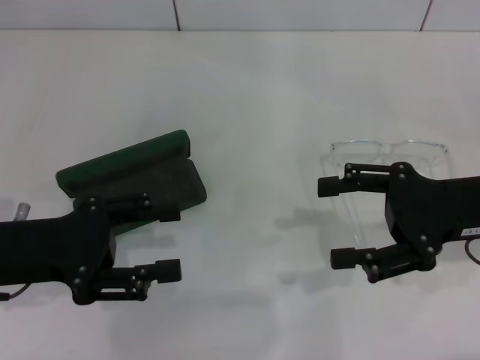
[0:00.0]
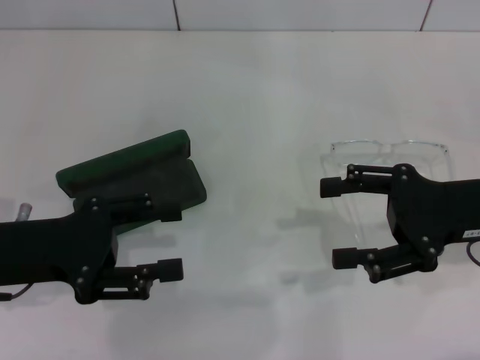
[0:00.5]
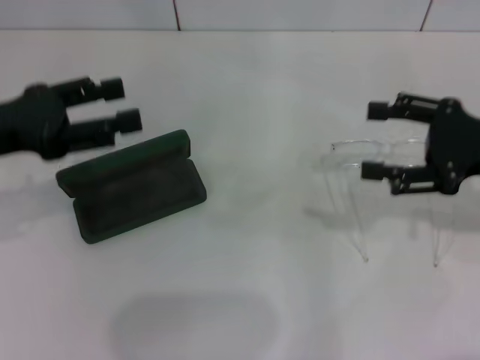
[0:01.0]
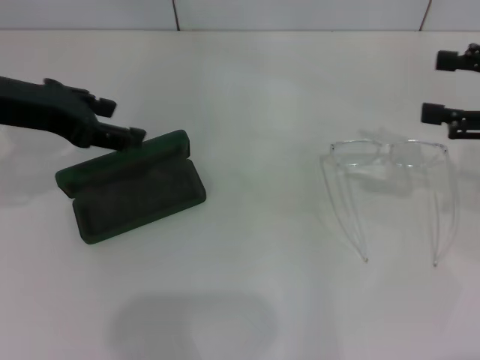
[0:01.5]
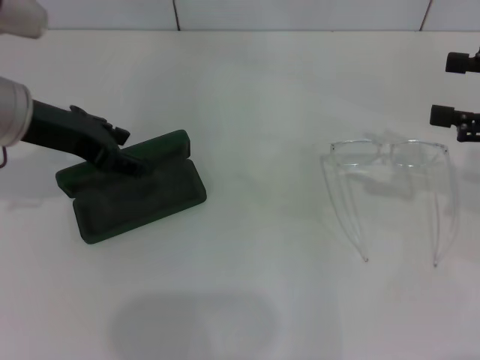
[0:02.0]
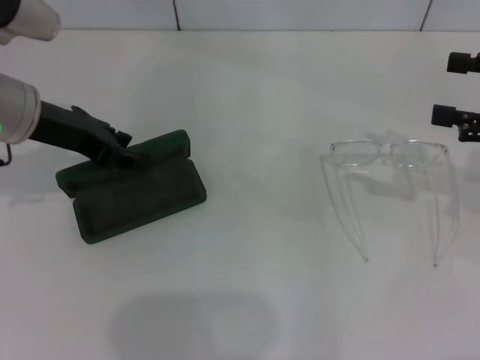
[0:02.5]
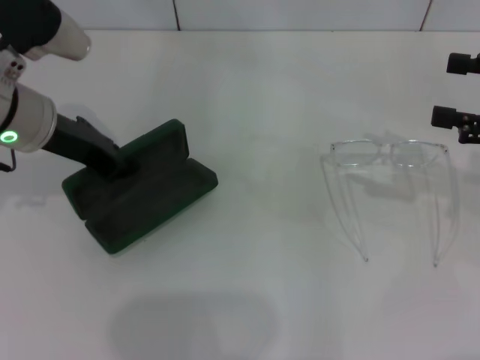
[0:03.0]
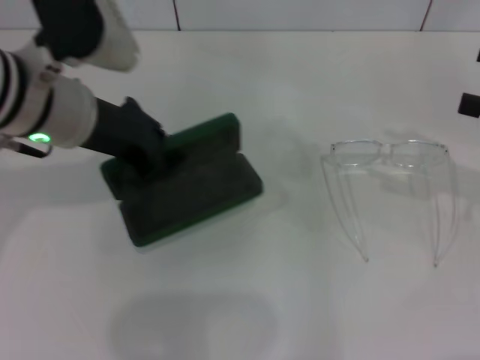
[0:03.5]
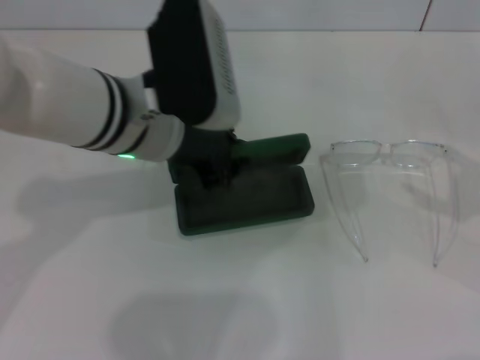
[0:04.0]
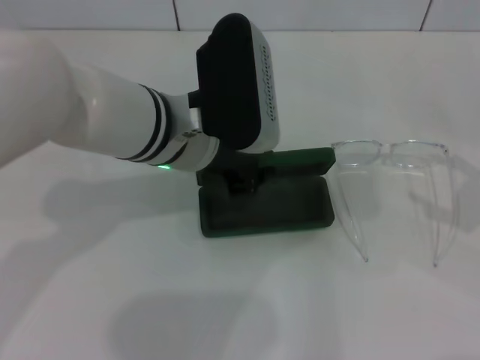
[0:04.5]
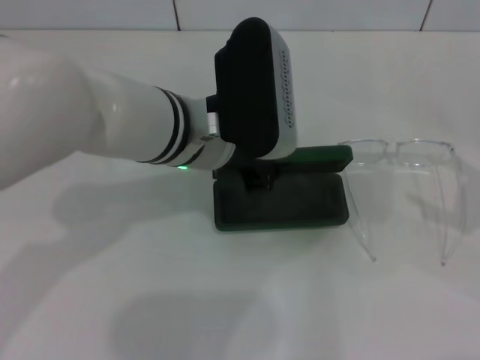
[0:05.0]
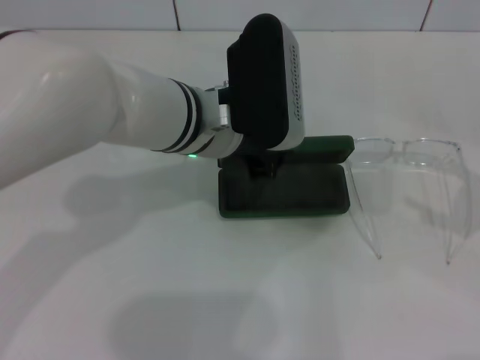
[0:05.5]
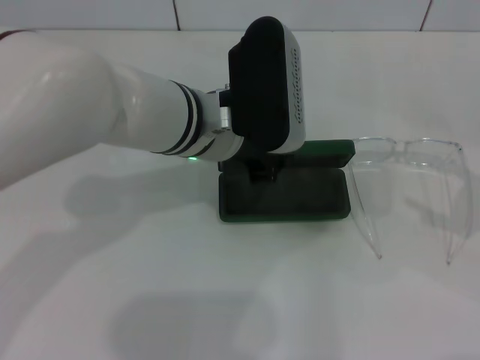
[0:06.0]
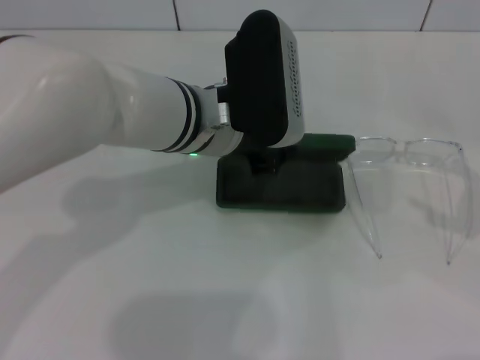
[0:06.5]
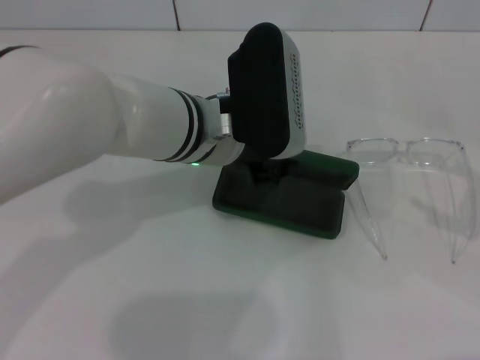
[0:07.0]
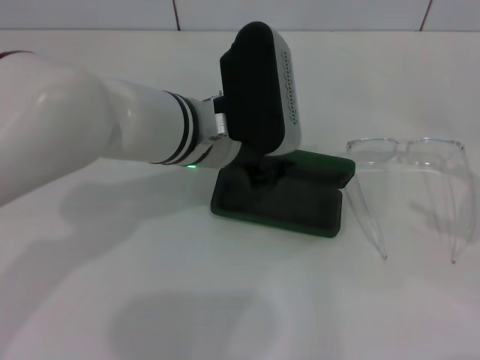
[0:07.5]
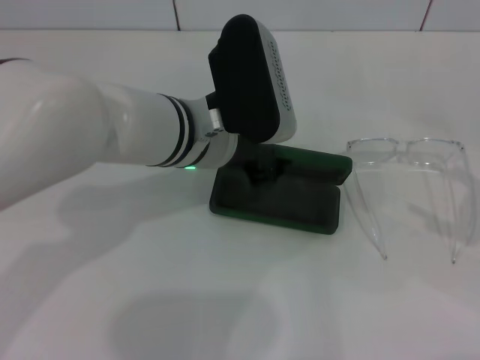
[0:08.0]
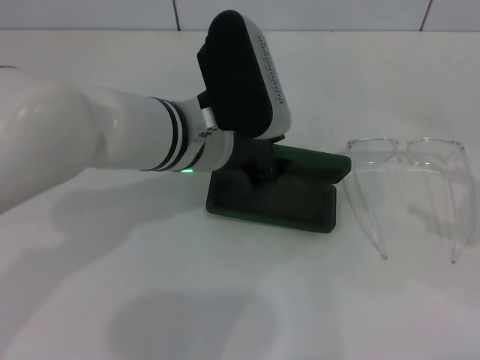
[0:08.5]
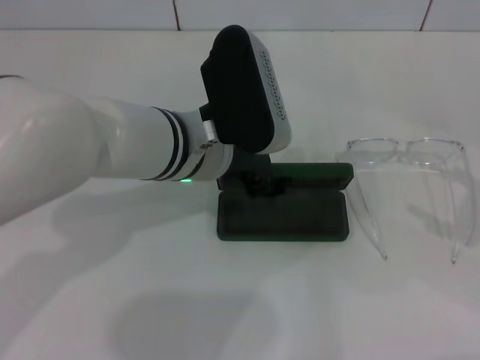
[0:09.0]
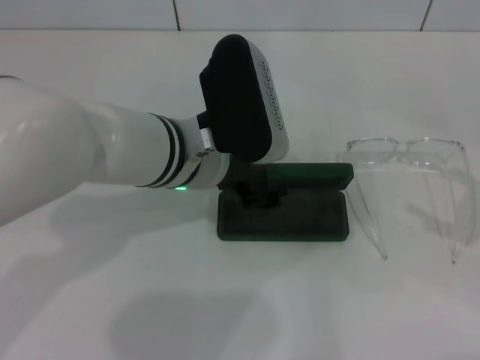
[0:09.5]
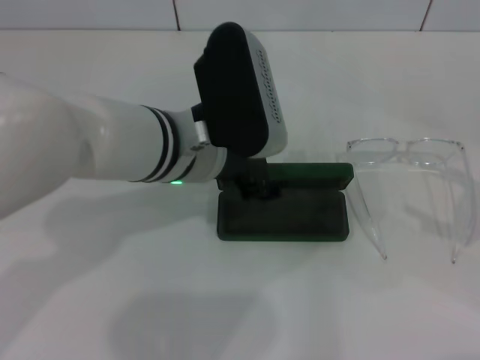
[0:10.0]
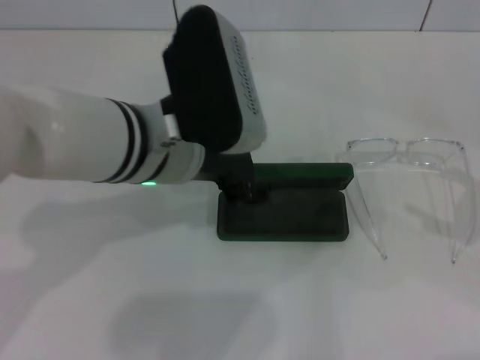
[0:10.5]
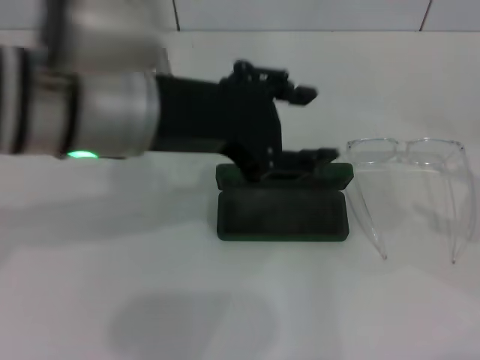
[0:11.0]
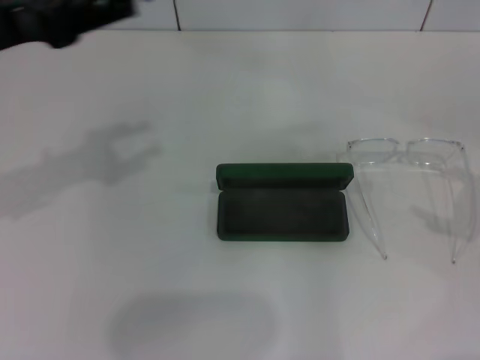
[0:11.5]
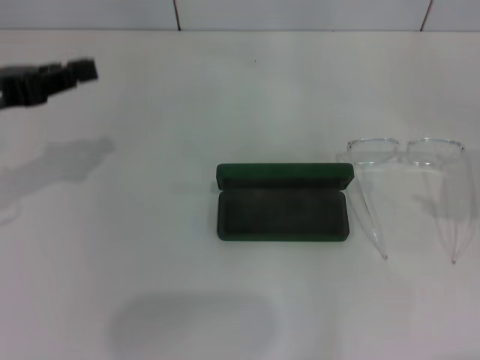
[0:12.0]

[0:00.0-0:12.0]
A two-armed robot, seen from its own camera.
Step, 0:00.0 to 0:02.5: Grab the glasses case with your left hand.
Step, 0:03.0 to 0:09.5: Place the glasses case in the center of the table with your left hand.
0:00.0 to 0:02.0: The left gripper travels forward and upward by some 15 cm. The right gripper goes roughly 10 cm to the right and upward.
0:02.0 to 0:04.0: The right gripper heads backward and to the right, covering roughly 10 cm, while the left gripper is displaced to the right by roughly 15 cm, and closes.
0:04.0 to 0:06.0: The left gripper changes place by approximately 5 cm.
0:06.0 to 0:08.0: There are only small adjustments of the grippers.
0:08.0 to 0:10.0: The left gripper opens up.
0:10.0 to 0:12.0: The right gripper goes approximately 10 cm forward and upward, while the left gripper goes roughly 25 cm to the left, and closes up.

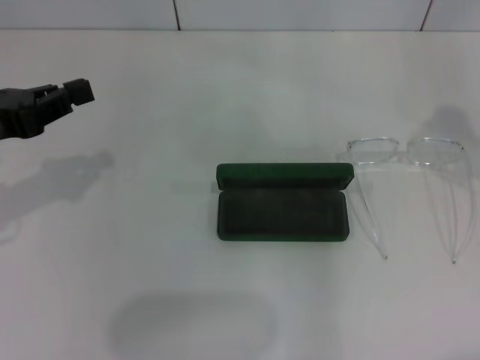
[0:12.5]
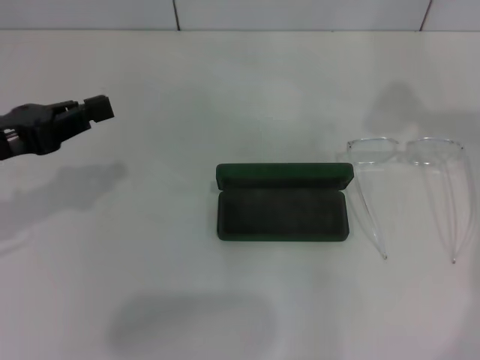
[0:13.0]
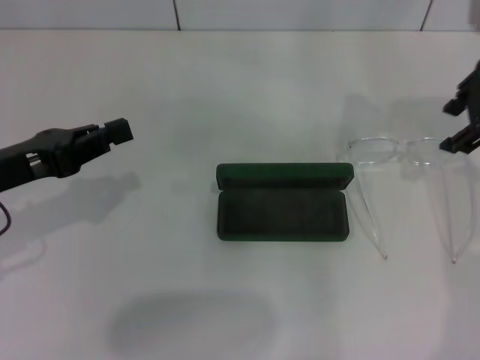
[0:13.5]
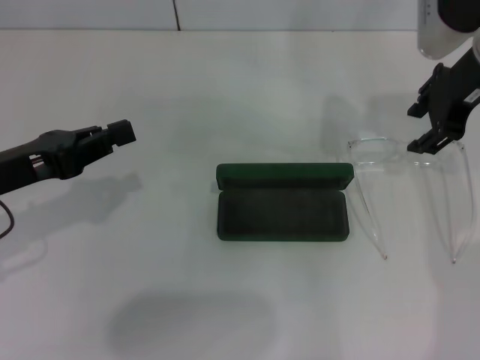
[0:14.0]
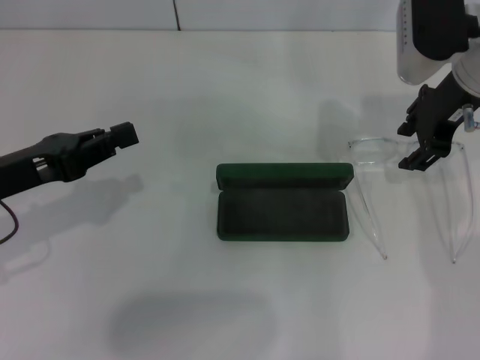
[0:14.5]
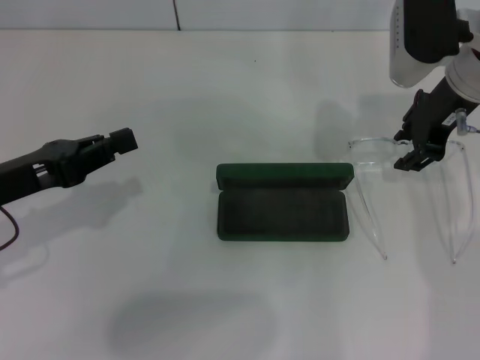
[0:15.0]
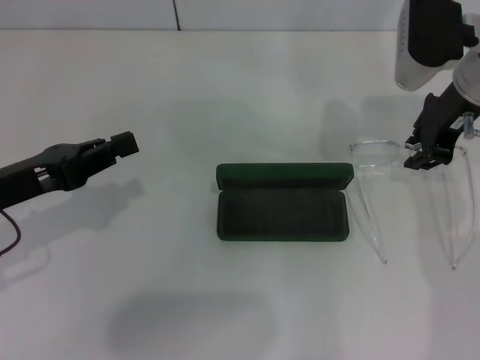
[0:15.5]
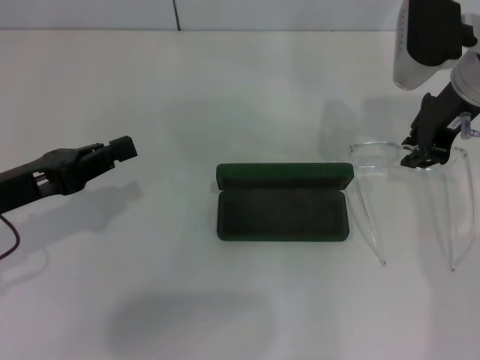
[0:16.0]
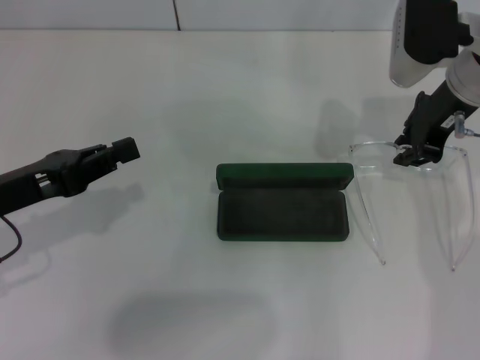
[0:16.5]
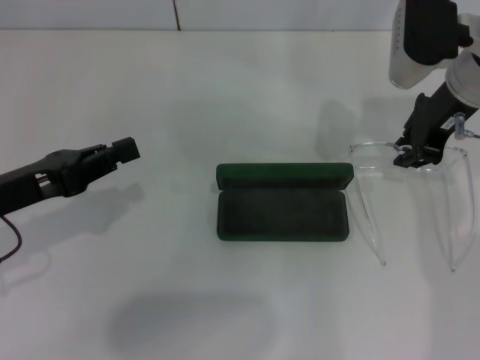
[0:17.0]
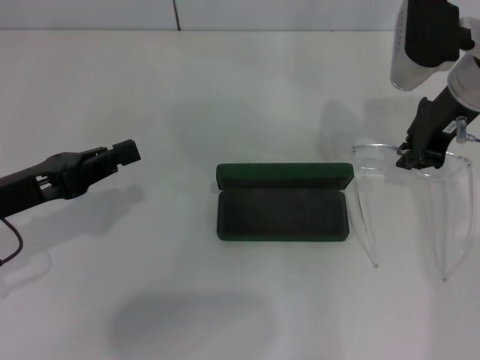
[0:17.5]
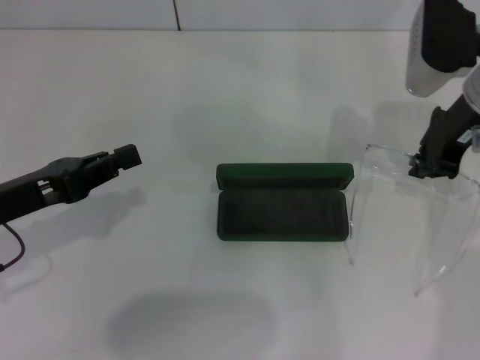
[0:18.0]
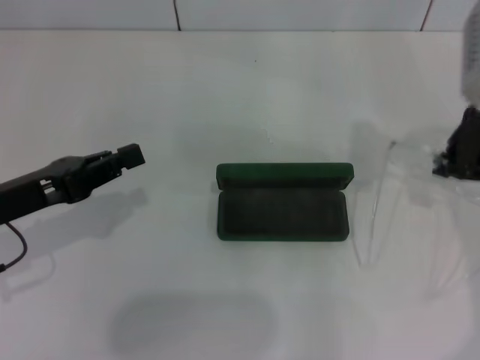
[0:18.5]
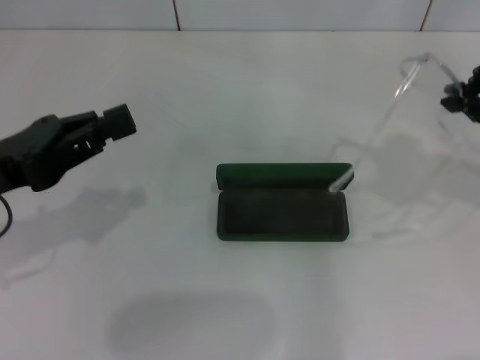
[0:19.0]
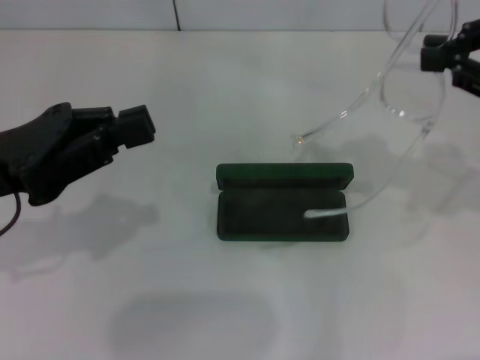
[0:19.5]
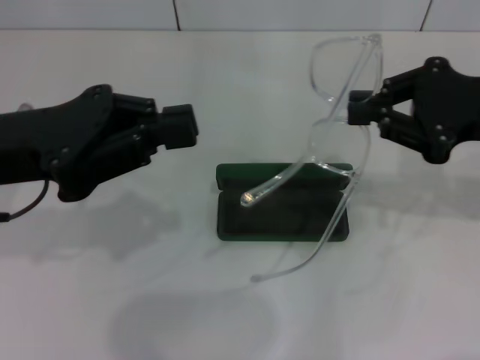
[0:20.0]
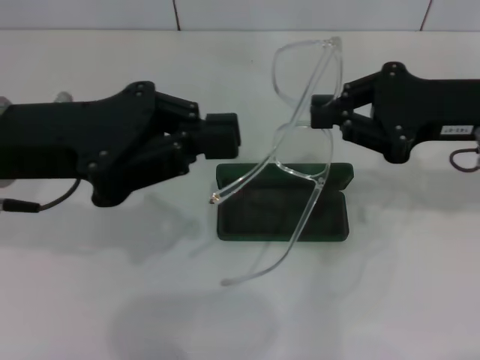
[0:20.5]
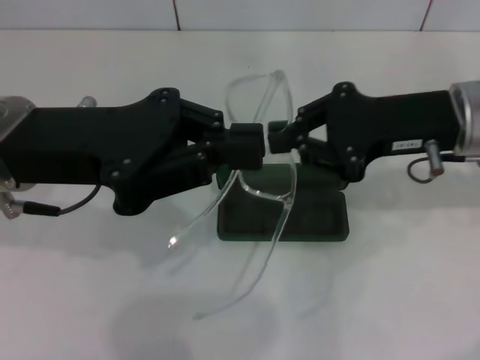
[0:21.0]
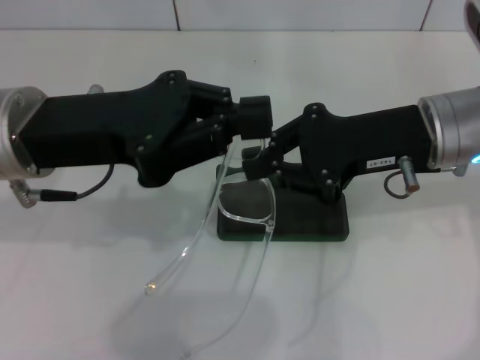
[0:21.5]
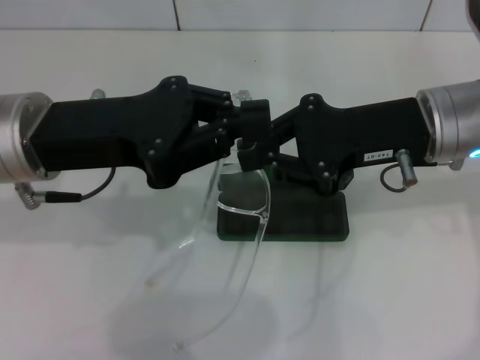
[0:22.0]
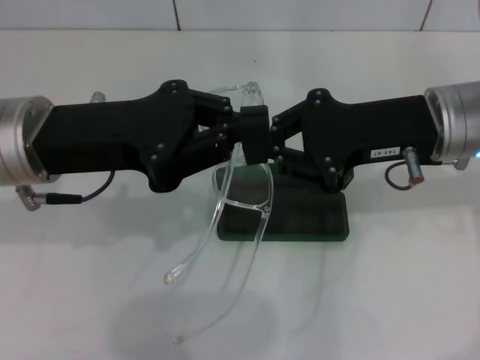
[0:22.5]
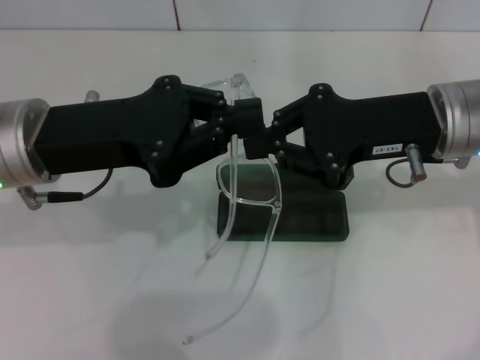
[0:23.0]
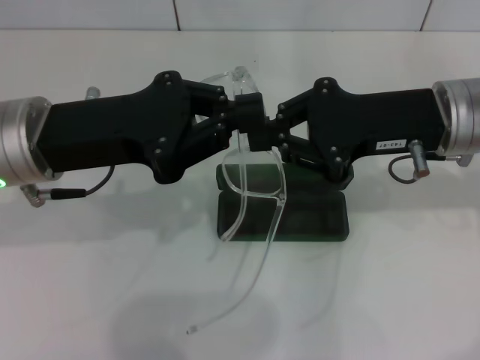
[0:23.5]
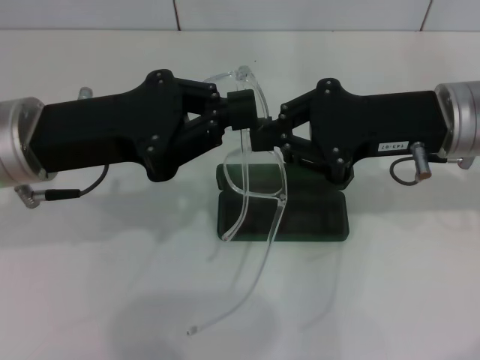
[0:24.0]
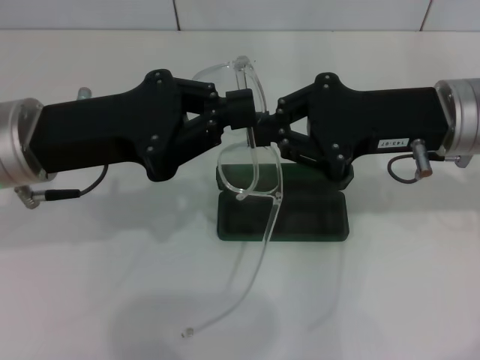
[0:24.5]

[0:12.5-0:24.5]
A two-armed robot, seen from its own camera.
Step, 0:12.5 to 0:17.5: Grab the eyeglass frame with your right hand.
0:12.5 to 0:14.5: The left gripper moves roughly 5 cm. The right gripper goes roughly 20 cm to the left, forward and downward.
0:14.5 to 0:16.5: The right gripper closes its fingers.
0:16.5 to 0:18.5: The right gripper goes approximately 5 cm backward.
0:18.5 to 0:20.5: The right gripper moves some 5 cm upward and comes back. The left gripper travels upward and to the right by about 10 cm.
0:20.5 to 0:22.5: The right gripper travels to the left by approximately 5 cm.
0:22.5 to 0:24.5: The grippers make only small movements.

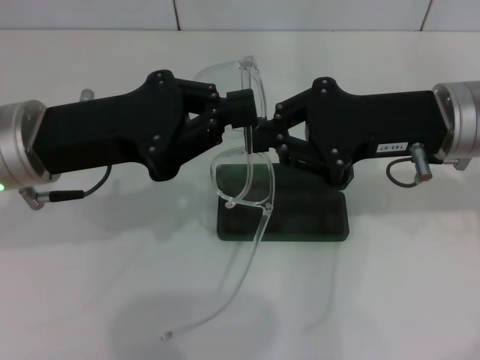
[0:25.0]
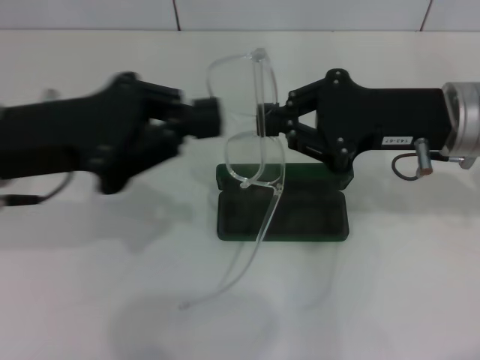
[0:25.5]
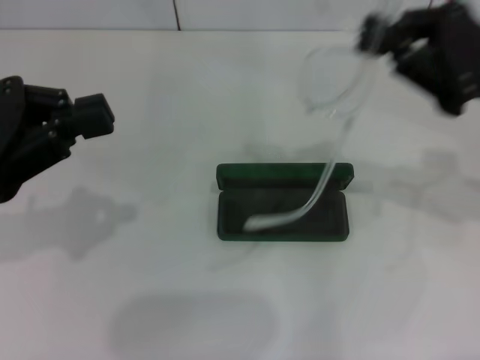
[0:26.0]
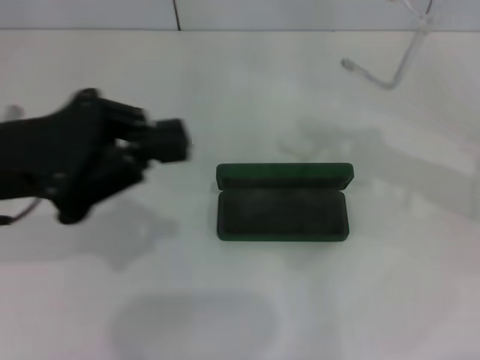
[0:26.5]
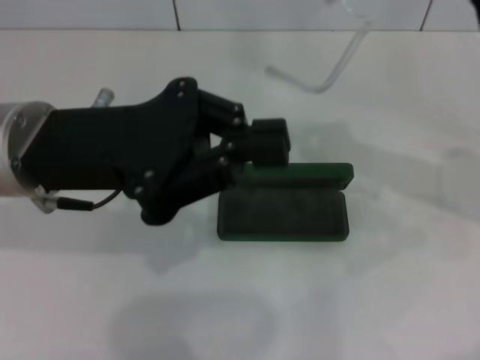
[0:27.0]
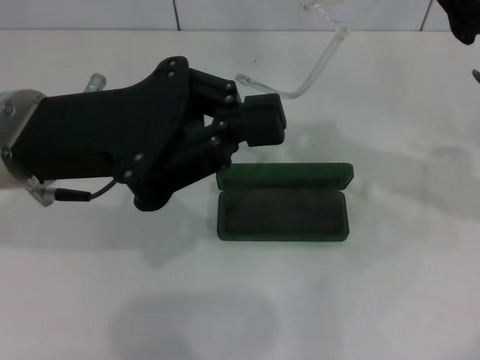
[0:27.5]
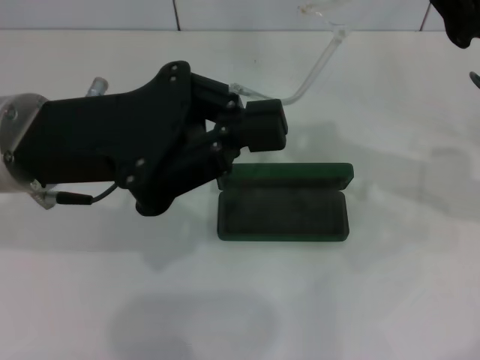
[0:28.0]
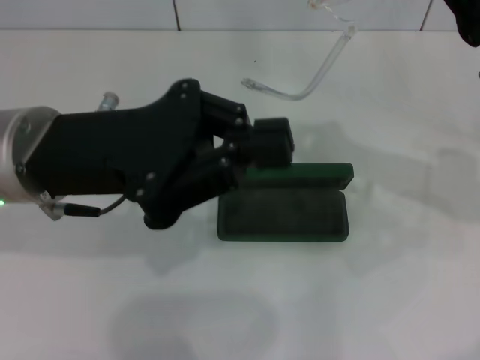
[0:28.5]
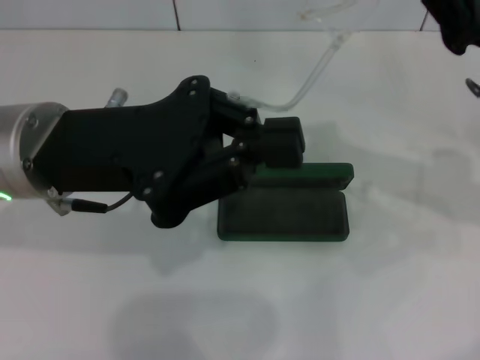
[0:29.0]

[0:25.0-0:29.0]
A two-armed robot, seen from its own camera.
0:25.0 to 0:27.0: The right gripper goes about 5 cm to the right. Meanwhile the left gripper moves some 10 cm to the left and comes back.
0:27.0 to 0:29.0: The grippers stay close to where they were, moving slightly.
